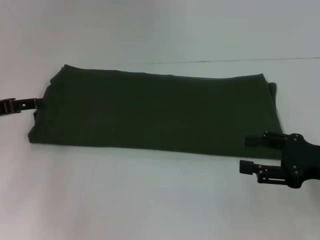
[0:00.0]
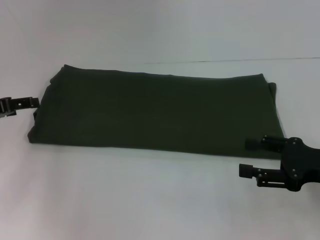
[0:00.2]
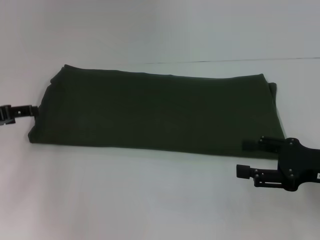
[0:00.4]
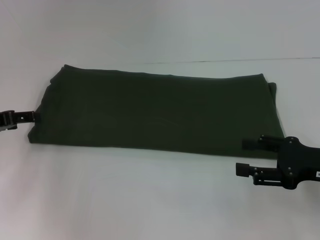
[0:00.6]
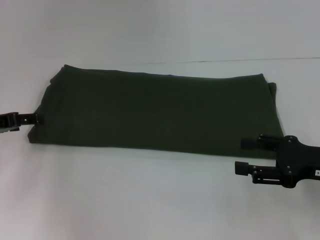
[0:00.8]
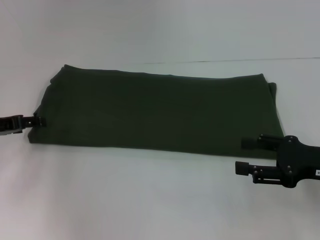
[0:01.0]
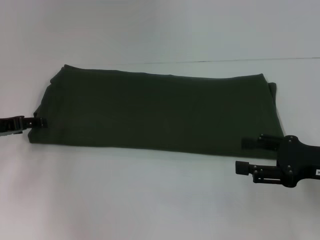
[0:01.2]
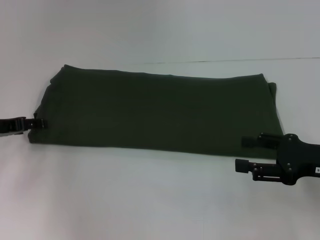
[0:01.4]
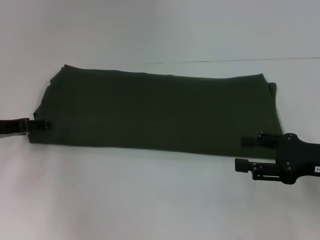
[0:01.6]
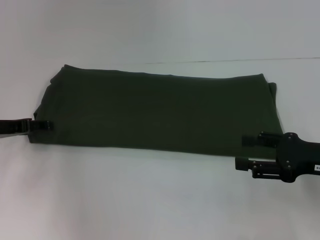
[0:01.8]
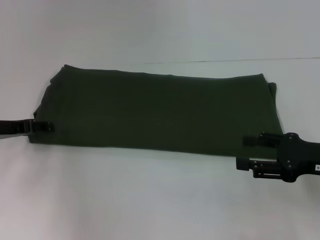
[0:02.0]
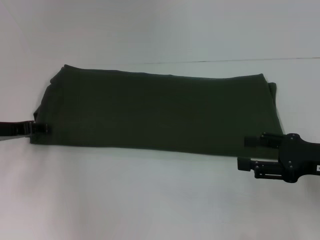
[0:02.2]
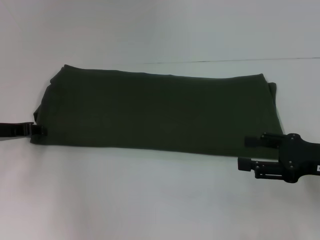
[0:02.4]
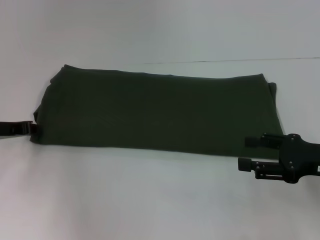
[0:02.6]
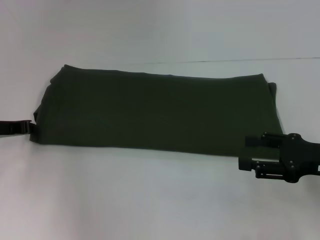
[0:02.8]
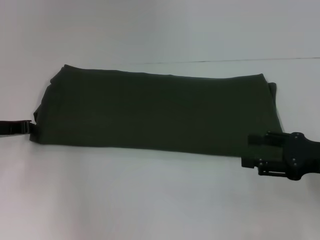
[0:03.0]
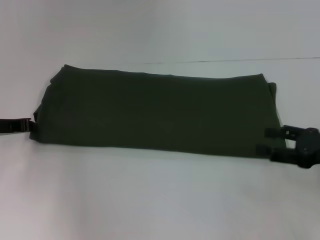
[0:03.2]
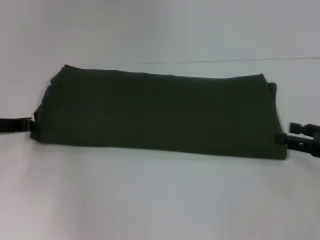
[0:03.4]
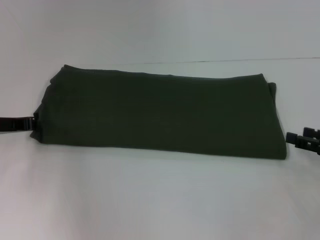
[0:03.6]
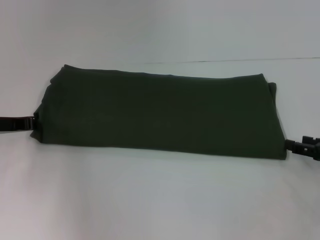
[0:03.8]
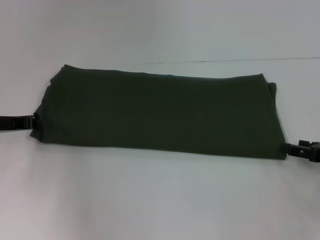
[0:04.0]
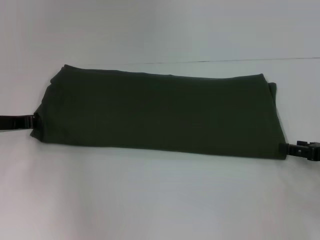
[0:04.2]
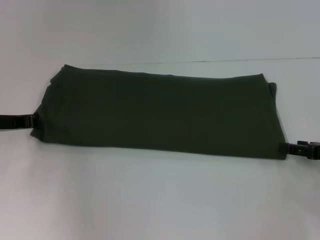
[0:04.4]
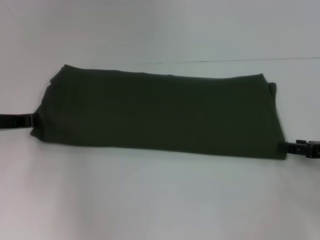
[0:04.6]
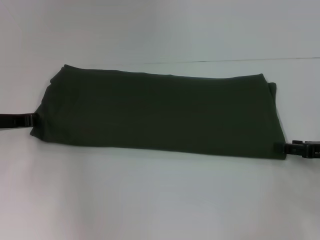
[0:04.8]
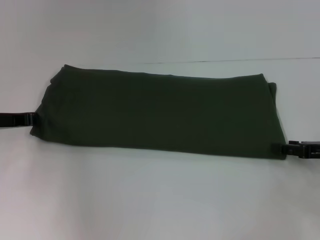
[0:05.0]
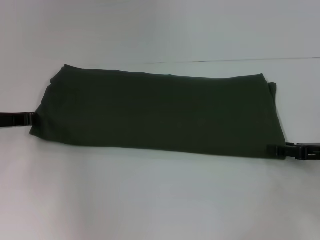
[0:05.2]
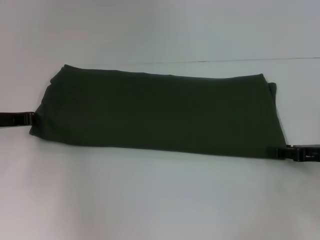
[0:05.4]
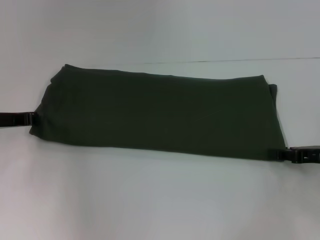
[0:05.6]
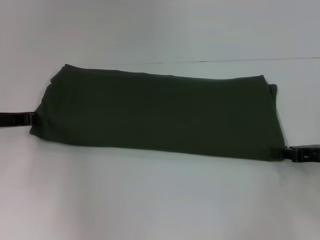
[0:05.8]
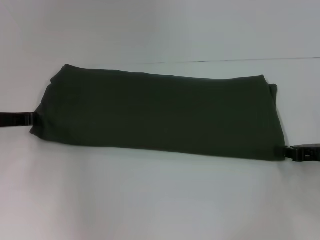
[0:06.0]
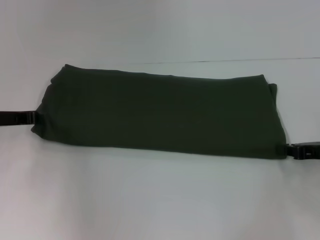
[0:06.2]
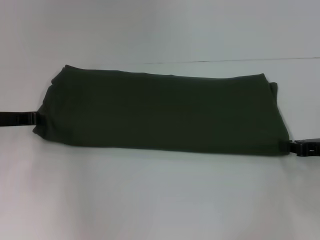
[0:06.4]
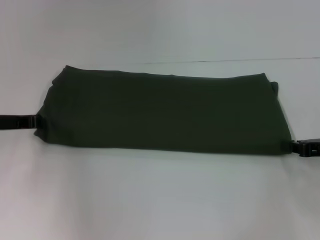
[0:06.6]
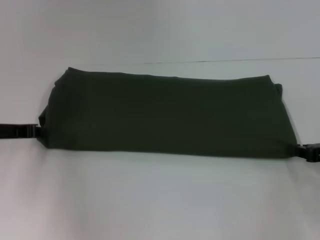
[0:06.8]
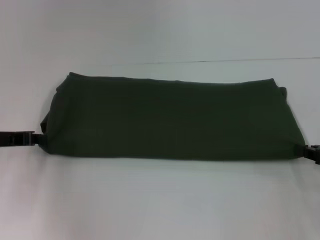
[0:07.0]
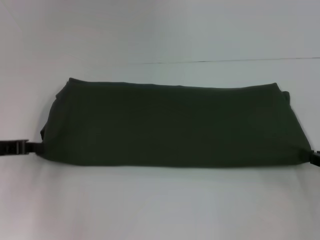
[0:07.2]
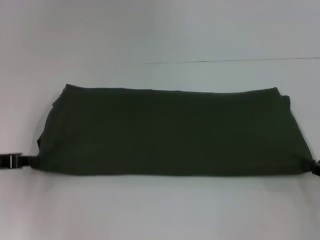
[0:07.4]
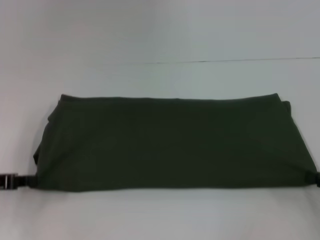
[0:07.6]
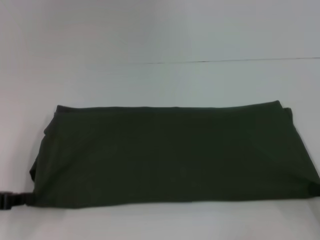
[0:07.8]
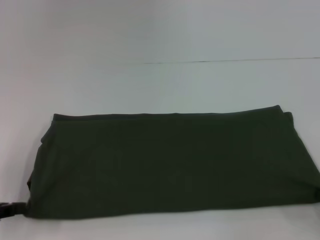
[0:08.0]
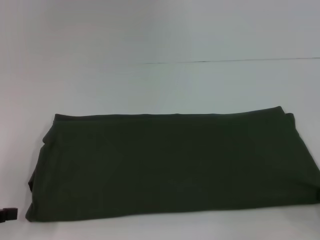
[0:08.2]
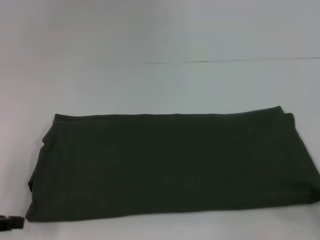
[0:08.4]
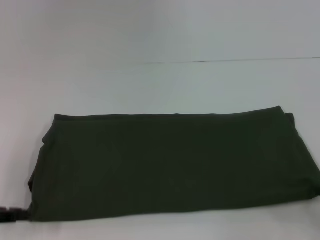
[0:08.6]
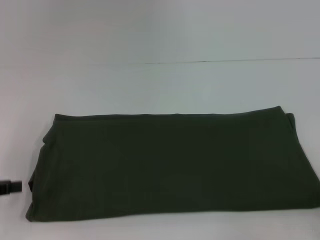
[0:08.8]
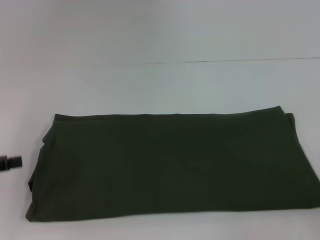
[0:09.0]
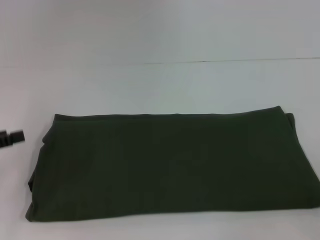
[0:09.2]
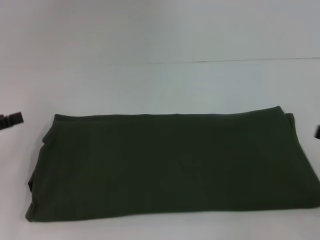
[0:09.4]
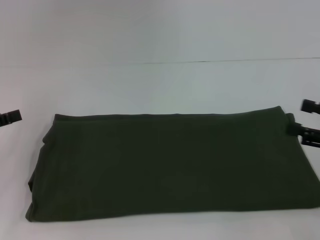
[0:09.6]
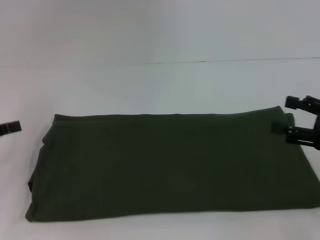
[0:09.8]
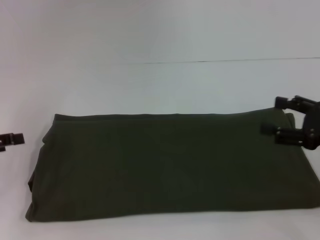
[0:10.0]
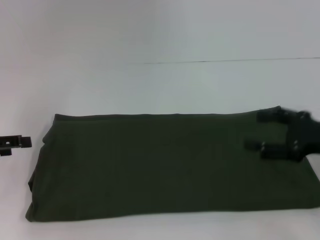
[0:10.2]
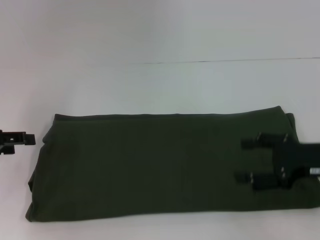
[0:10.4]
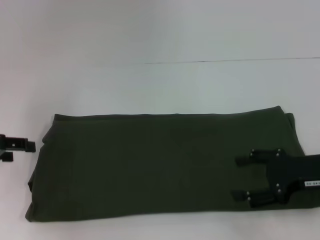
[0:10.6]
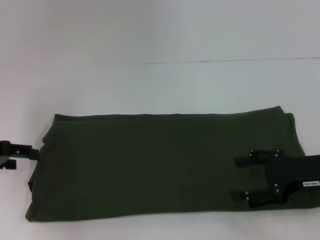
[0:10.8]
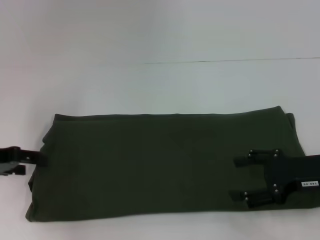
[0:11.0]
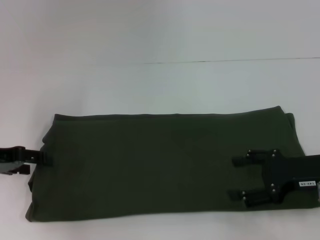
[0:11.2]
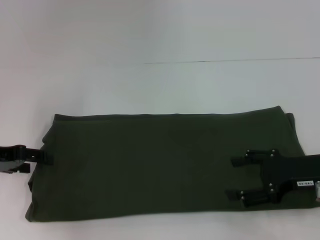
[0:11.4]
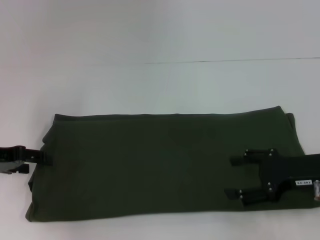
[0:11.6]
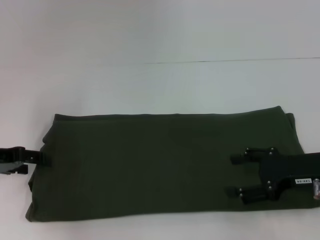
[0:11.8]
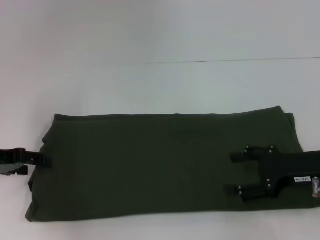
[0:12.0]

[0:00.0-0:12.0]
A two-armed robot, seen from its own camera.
Step, 0:00.0 to 0:08.0: Pull the clothes with your left hand.
0:00.0 to 0:01.6: The grippers make only small movements.
0:03.0 to 0:04.4: The right gripper travels to the right by approximately 5 cm.
0:04.4 to 0:06.0: The right gripper closes up.
0:06.0 to 0:07.6: Both grippers travel together backward, about 10 cm.
0:07.6 to 0:09.0: The right gripper moves about 5 cm, and opens up, while the left gripper ends up roughly 5 cm from where it was, and opens up.
0:09.0 to 0:10.4: The left gripper is displaced forward by about 5 cm. The right gripper heads to the left and forward, covering approximately 15 cm, and opens.
0:10.4 to 0:12.0: The grippers stay close to where they were, moving slightly.

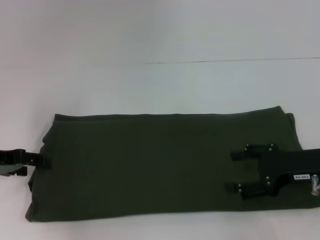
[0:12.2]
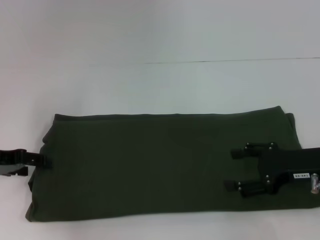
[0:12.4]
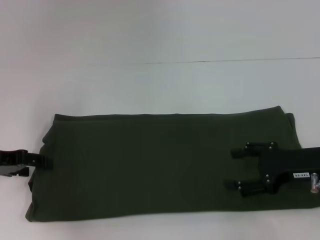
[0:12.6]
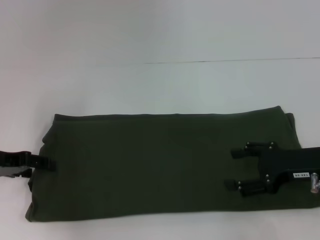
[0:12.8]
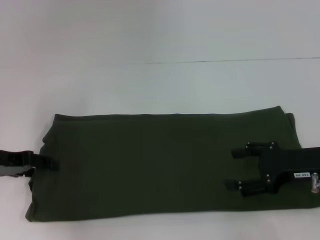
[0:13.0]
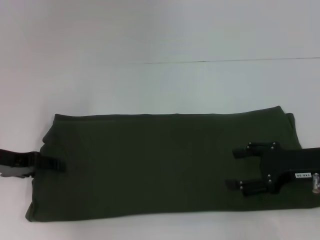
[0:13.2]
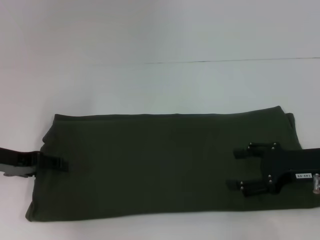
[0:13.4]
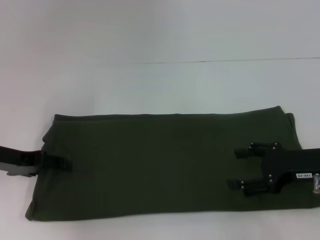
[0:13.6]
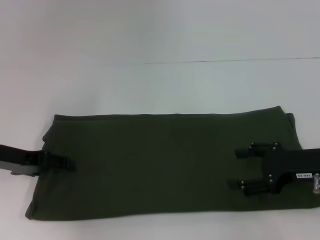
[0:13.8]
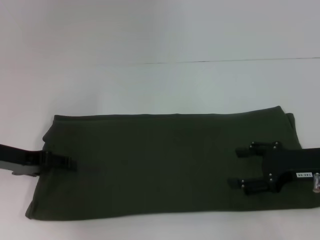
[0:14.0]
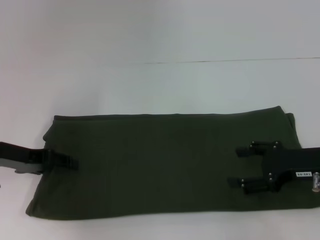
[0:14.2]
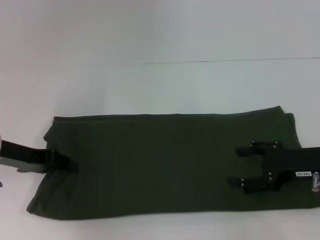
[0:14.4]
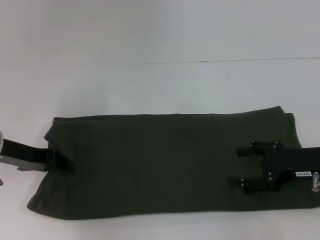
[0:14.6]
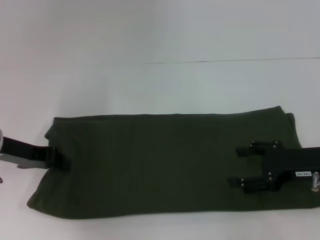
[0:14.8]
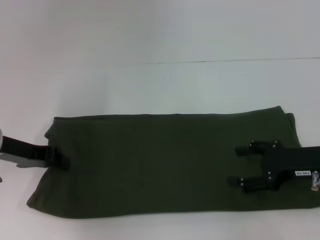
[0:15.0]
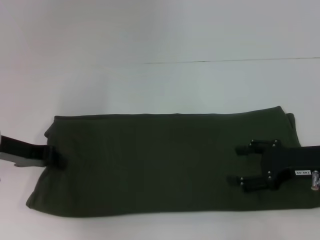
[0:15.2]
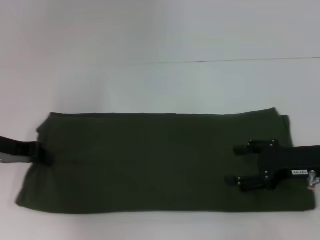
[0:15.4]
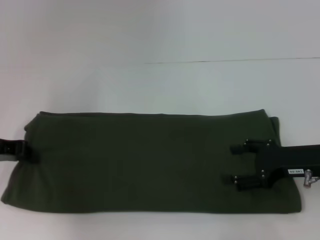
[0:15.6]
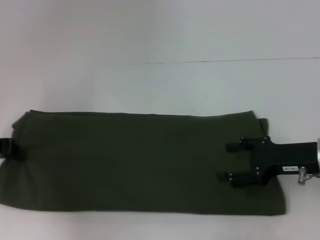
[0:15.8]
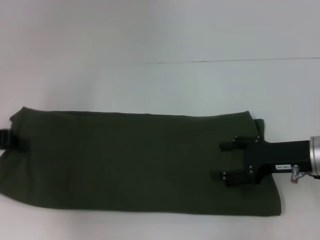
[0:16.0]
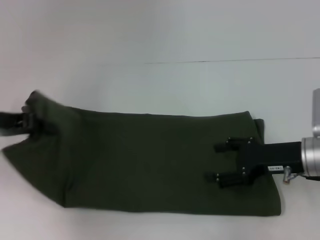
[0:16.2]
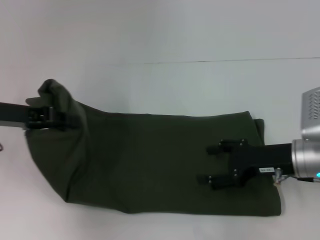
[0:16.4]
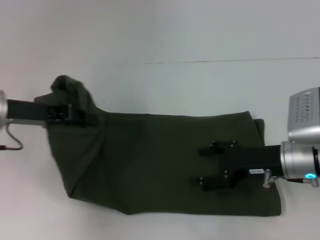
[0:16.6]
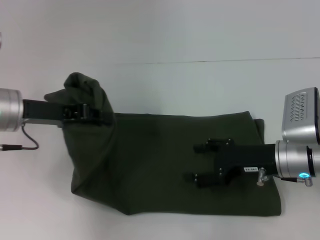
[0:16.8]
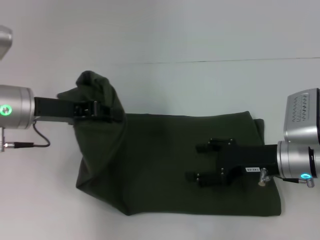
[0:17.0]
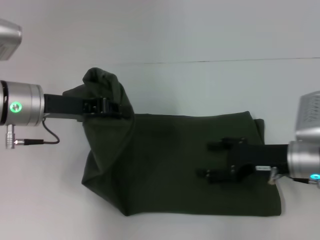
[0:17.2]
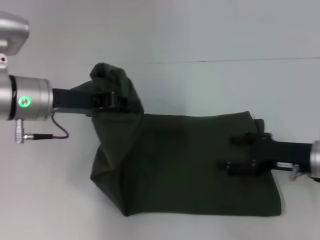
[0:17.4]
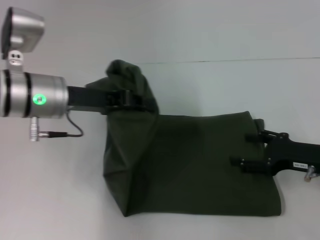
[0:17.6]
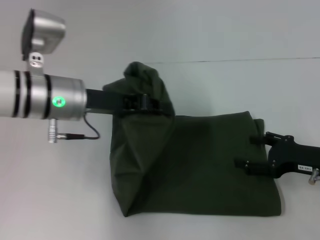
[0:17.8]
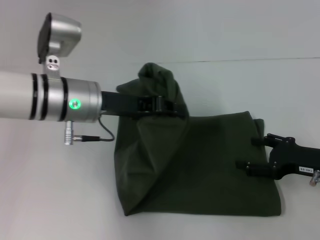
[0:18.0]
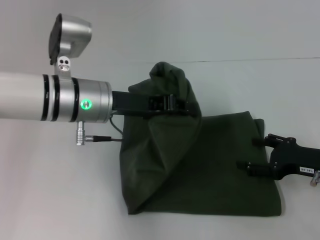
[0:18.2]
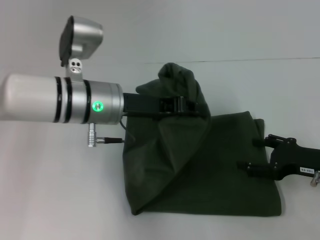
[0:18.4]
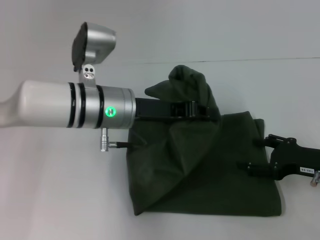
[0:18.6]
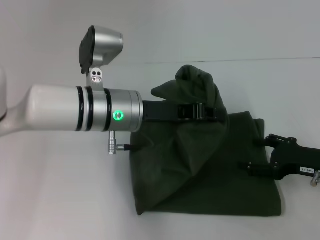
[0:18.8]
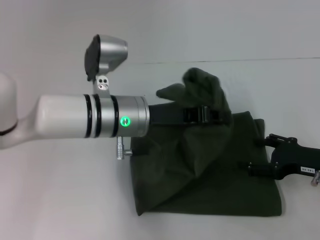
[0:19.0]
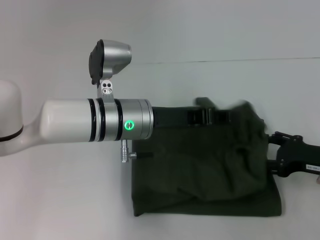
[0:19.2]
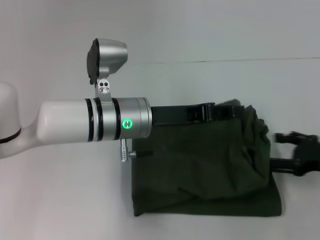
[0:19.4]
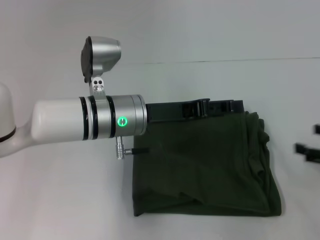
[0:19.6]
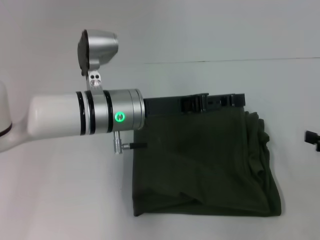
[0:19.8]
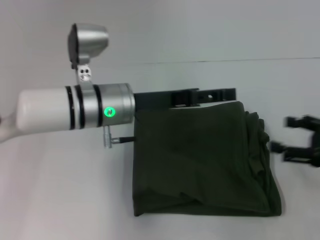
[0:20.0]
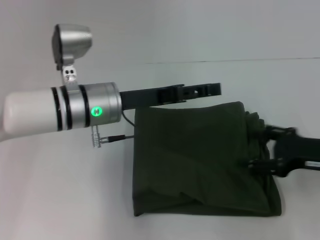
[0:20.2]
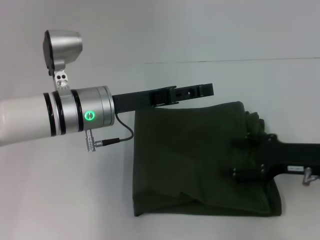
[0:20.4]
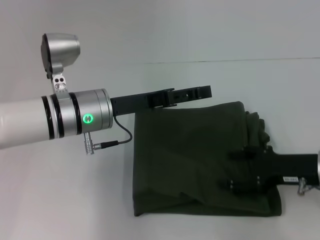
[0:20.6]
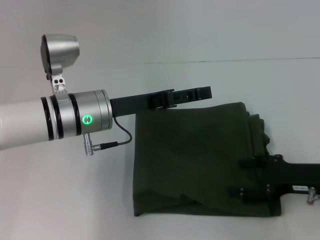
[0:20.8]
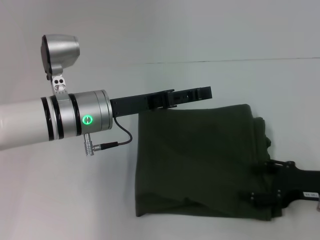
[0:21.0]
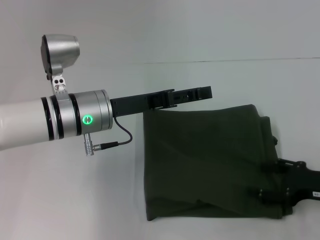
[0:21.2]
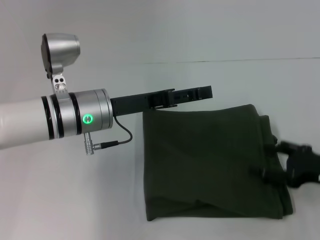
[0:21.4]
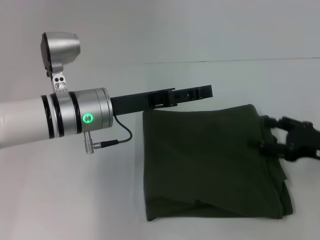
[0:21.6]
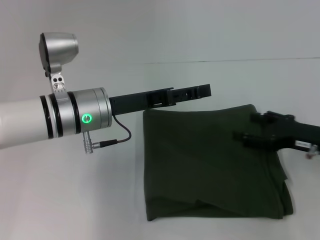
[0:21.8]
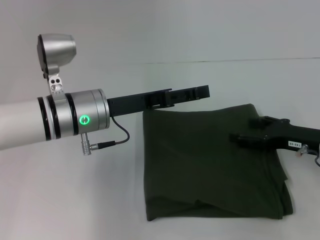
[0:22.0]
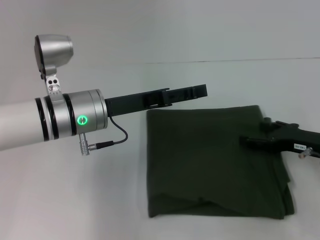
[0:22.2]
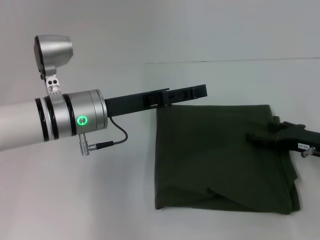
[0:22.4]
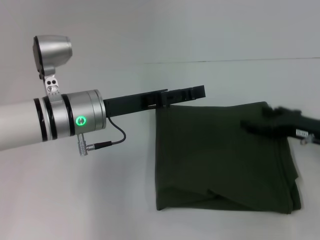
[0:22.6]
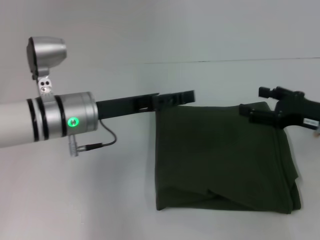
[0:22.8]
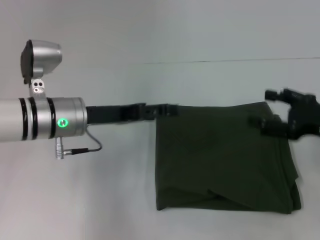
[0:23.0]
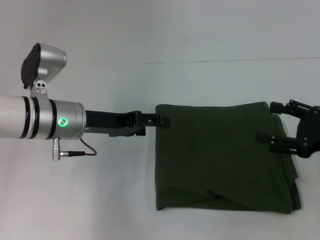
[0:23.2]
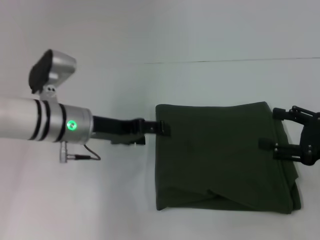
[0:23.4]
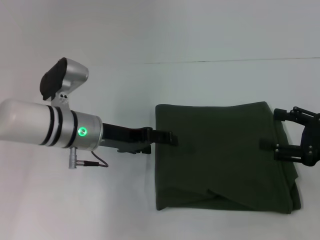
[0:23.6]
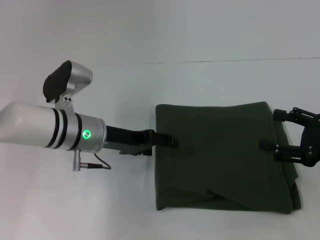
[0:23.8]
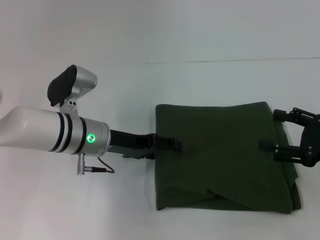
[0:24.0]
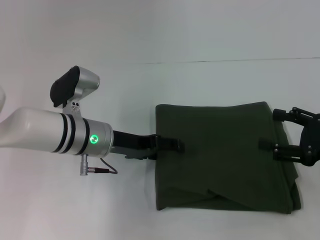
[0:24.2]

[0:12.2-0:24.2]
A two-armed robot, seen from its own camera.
Step, 0:12.2 to 0:19.4: Fold the clothes with your left hand.
0:12.2 to 0:13.8: There are only small adjustments of the grippers.
0:13.8 to 0:15.2: The left gripper closes up.
0:15.2 to 0:16.6: The right gripper shifts some 5 cm to the left; the left gripper goes to the left and returns, approximately 5 cm each way.
0:16.6 to 0:18.2: The right gripper is displaced to the right by about 10 cm, while the left gripper is displaced to the right by approximately 15 cm.
0:18.2 to 0:19.8: The right gripper travels to the right by approximately 10 cm, while the left gripper opens its fingers.
0:19.8 to 0:21.2: The right gripper travels to the left and downward by approximately 10 cm.
0:21.2 to 0:22.6: The right gripper moves forward, roughly 5 cm.
0:22.6 to 0:24.2: The right gripper is displaced backward by approximately 5 cm.
